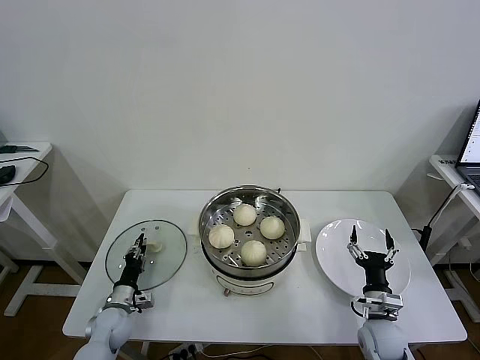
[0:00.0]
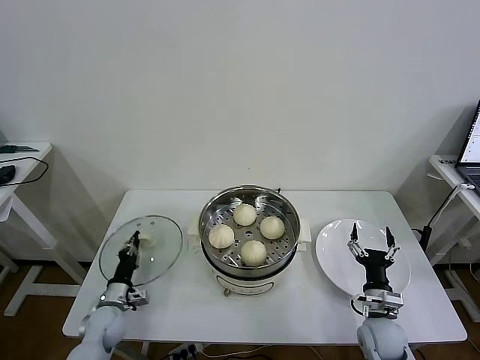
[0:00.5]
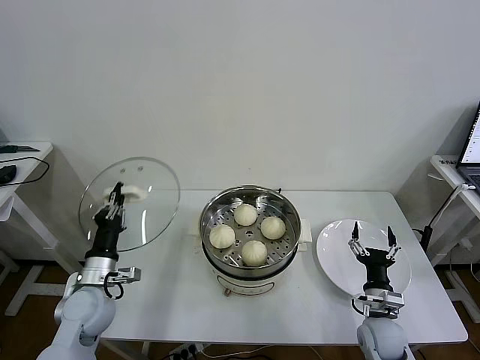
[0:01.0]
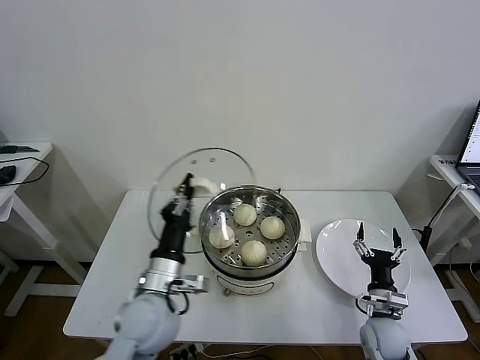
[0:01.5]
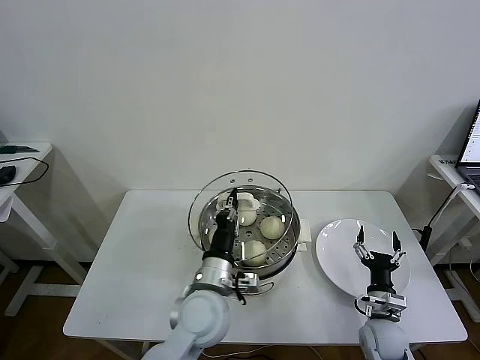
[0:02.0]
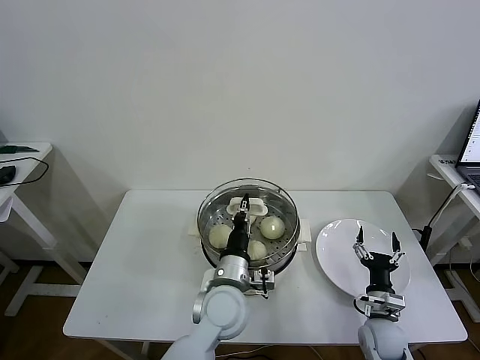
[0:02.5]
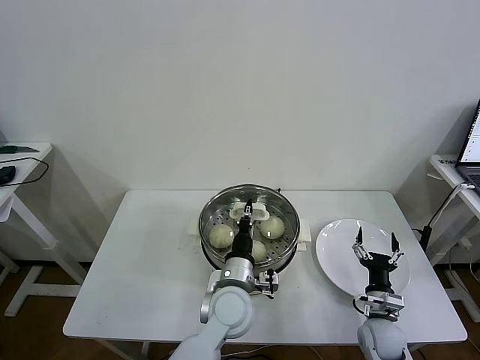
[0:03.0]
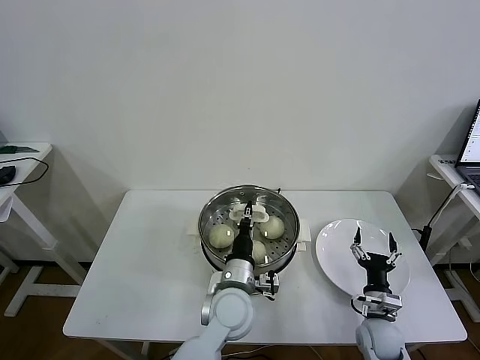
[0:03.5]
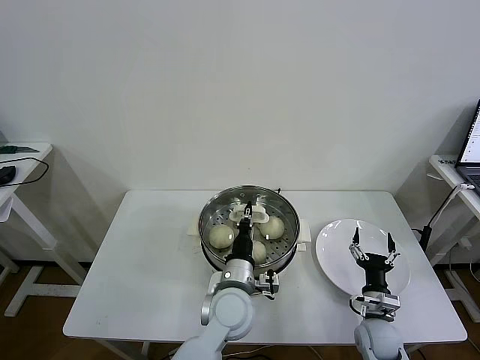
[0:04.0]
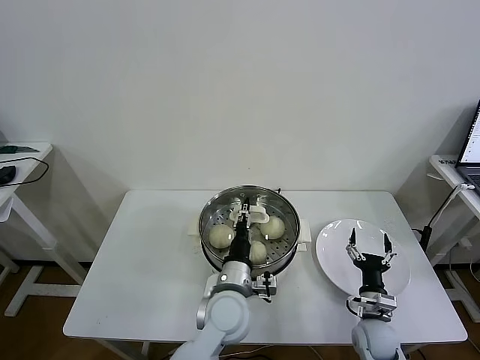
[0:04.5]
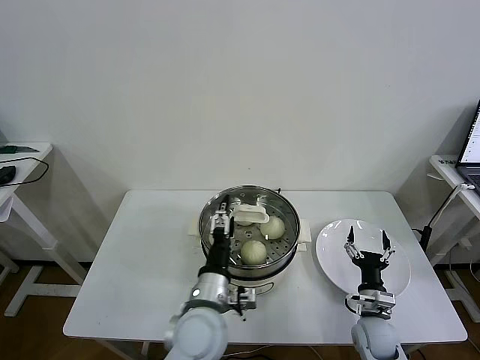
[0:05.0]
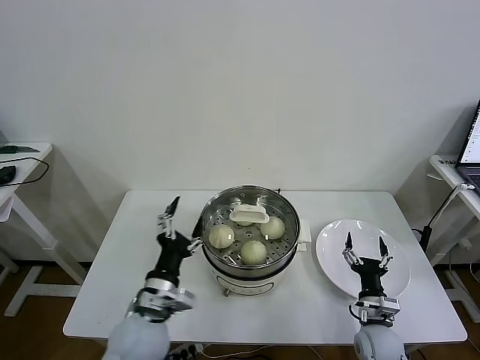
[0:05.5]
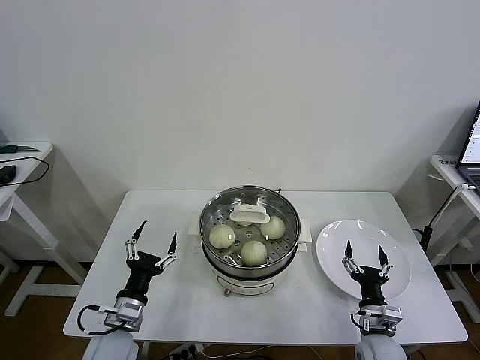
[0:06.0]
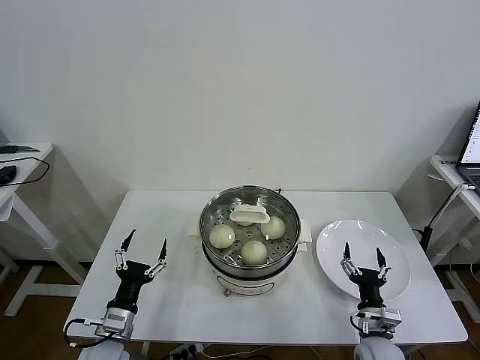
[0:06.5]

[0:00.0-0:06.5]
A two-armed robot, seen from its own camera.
Task of the whole recording: take steamed baozi put them in steamer then cover it.
Step, 0:00.5 to 0:04.0: Place the pot lid on the steamer with left gripper.
0:00.0 to 0:02.0: The left gripper travels to the right and upward by about 35 cm, and closes up.
0:02.0 to 0:04.5: The left gripper heads to the right, covering some 5 cm, and opens up.
0:04.5 to 0:06.5: The left gripper moves to the left, some 25 cm, and opens.
